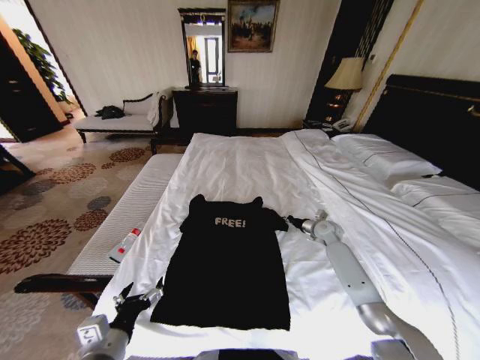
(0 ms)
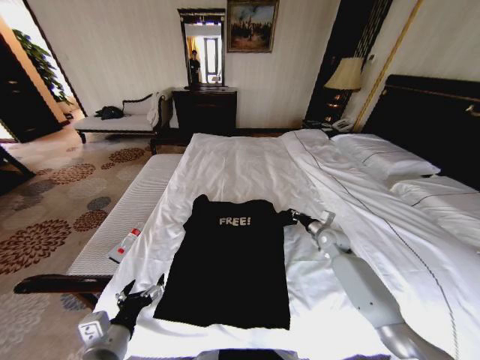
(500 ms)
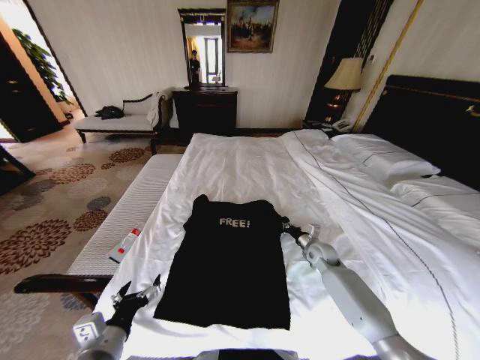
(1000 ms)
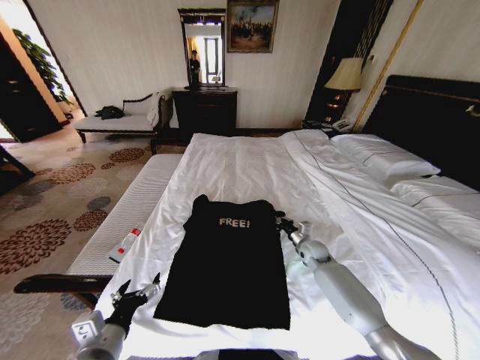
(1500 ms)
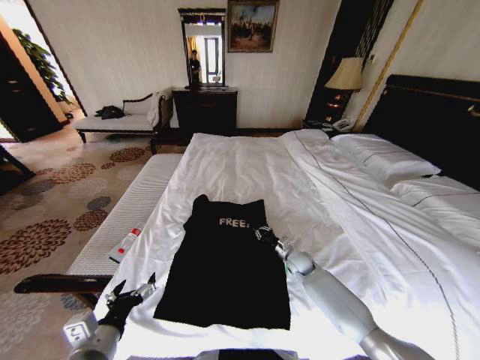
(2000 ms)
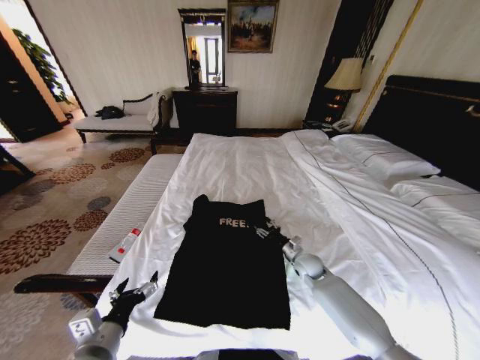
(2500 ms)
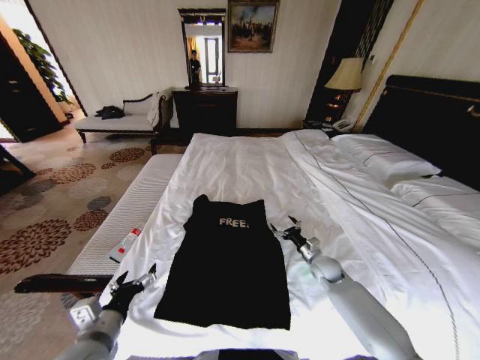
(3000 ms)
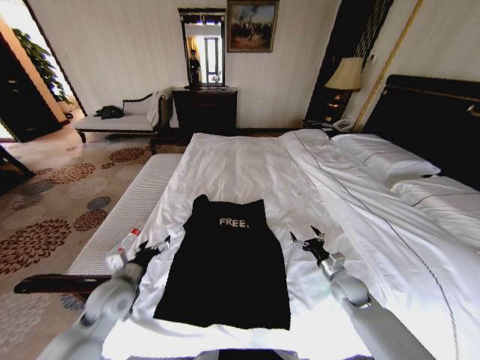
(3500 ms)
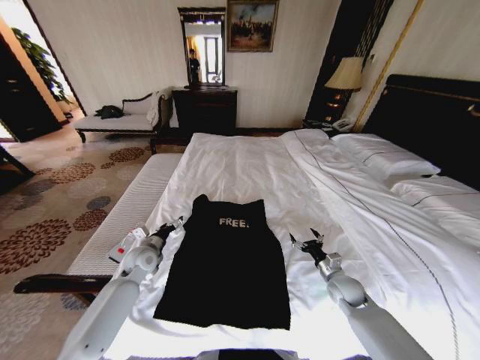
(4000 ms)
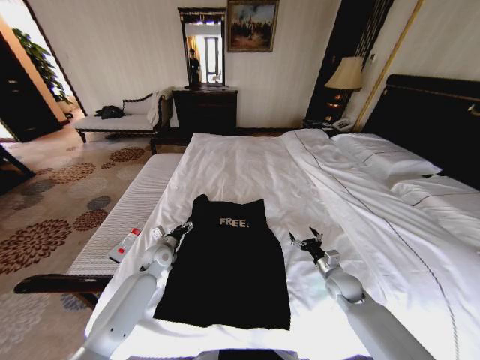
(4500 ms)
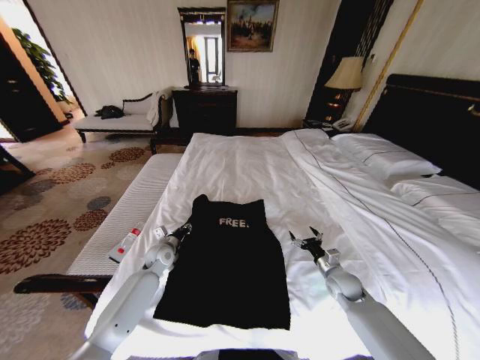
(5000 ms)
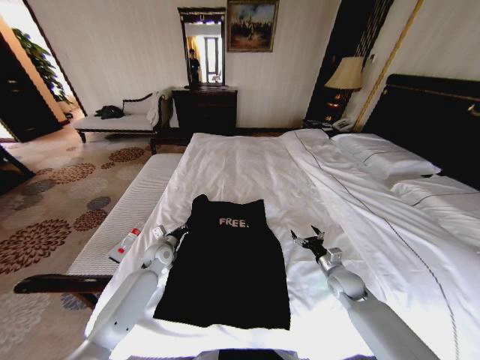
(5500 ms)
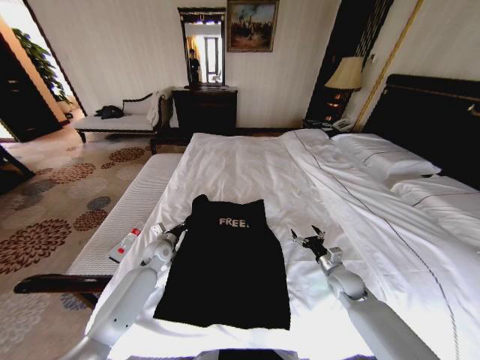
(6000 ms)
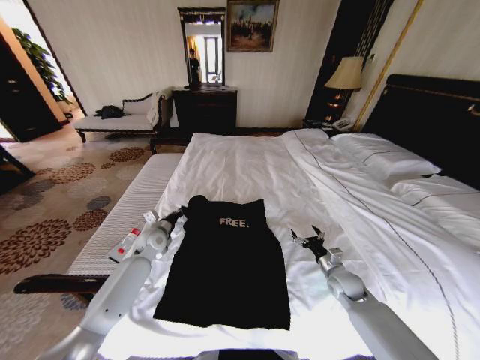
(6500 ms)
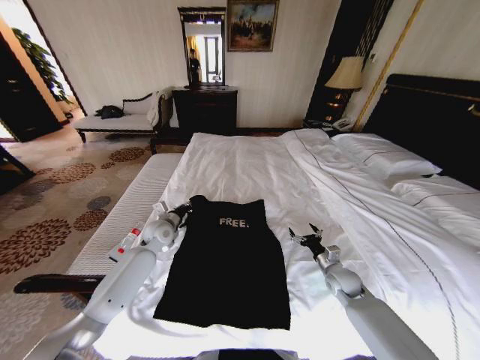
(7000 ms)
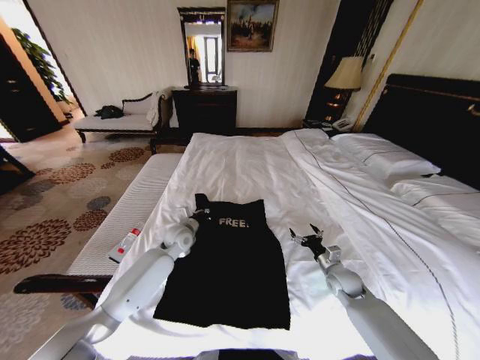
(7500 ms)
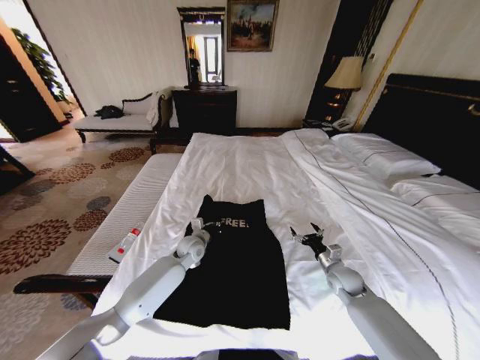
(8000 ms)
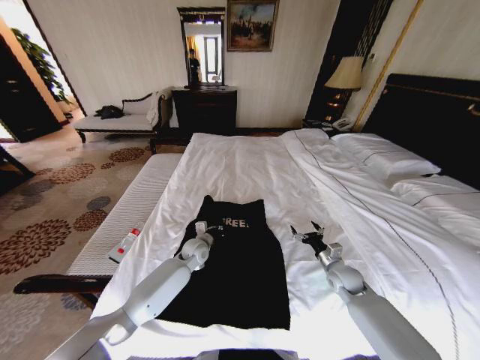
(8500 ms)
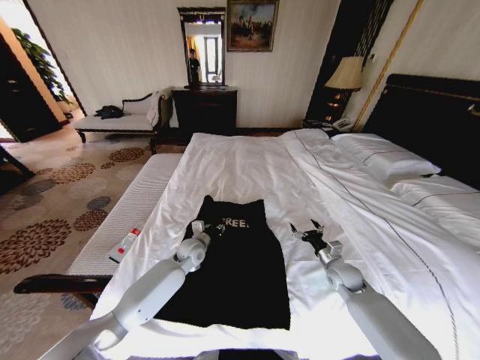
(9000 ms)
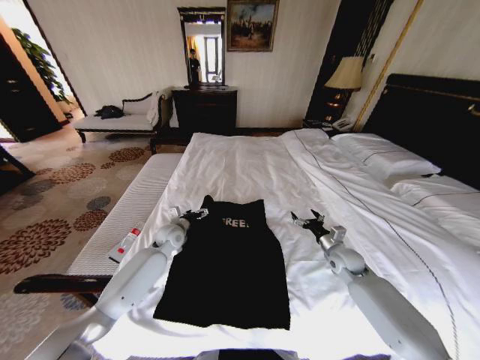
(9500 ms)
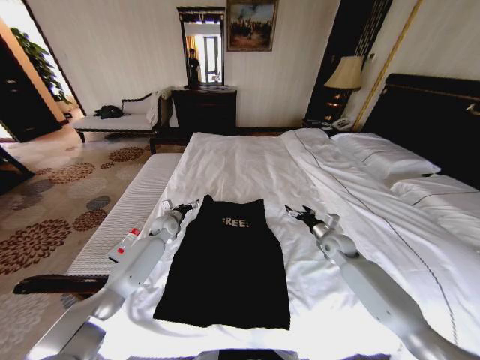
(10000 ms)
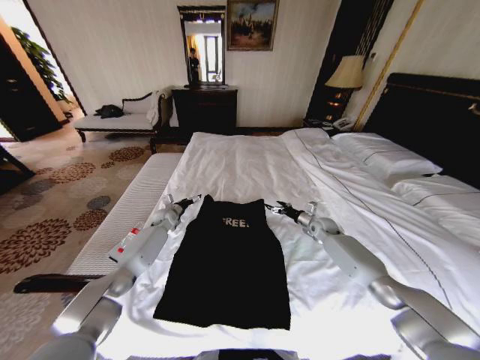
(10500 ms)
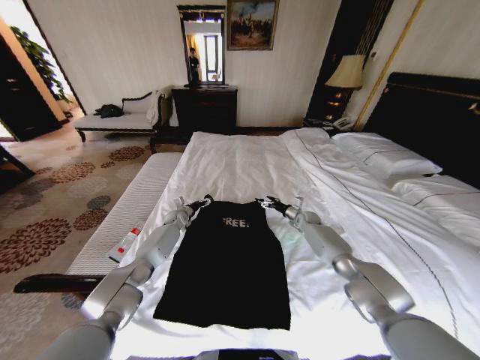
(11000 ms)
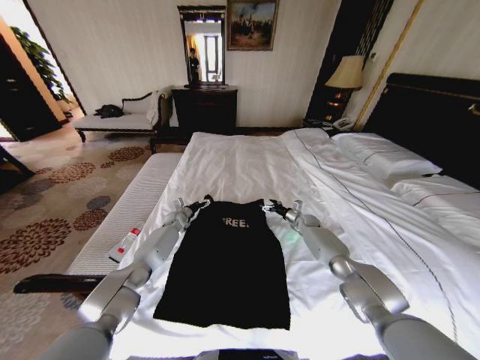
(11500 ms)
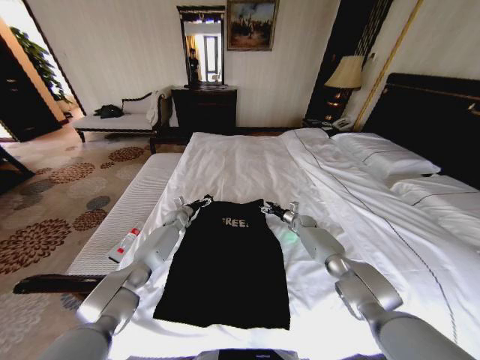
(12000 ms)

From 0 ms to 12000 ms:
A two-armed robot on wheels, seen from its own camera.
Task of the whole recording: Fold the clothes on the bed.
From 0 ms to 2000 ms: The right gripper goes about 15 cm to the left, downward and backward.
From 2000 ms to 4000 ms: The right gripper goes roughly 15 cm to the right and backward, and opens. The left gripper travels forward by approximately 30 cm.
From 4000 ms to 6000 ms: The left gripper ends up roughly 5 cm from where it was, and closes.
From 6000 ms to 8000 ms: The left gripper moves to the right, roughly 10 cm.
From 8000 ms to 10000 ms: The right gripper shifts approximately 10 cm forward and upward, while the left gripper goes approximately 15 cm to the left and forward, and opens its fingers.
From 10000 ms to 12000 ms: The left gripper shifts about 5 cm forward, while the right gripper heads forward and downward, covering approximately 20 cm.

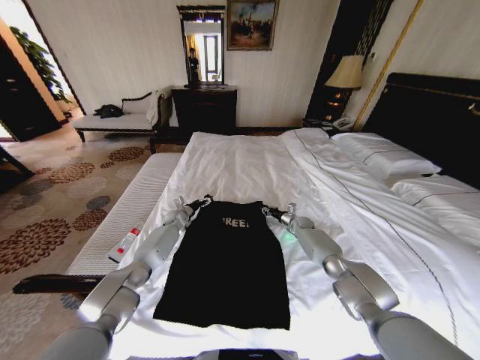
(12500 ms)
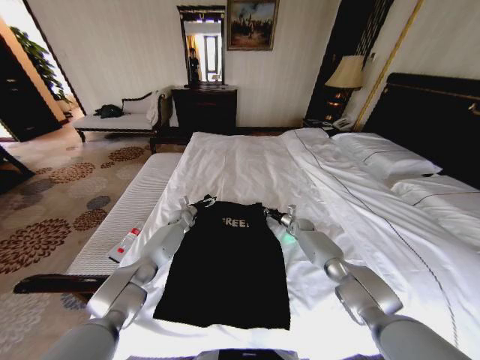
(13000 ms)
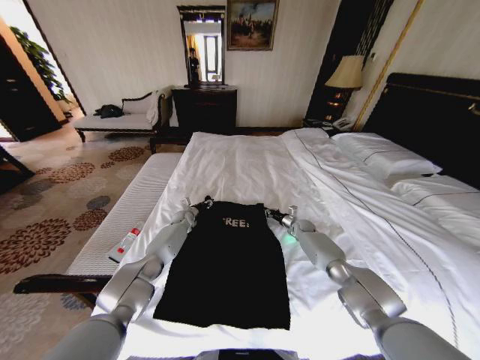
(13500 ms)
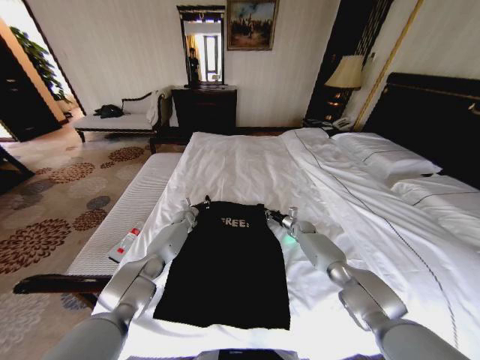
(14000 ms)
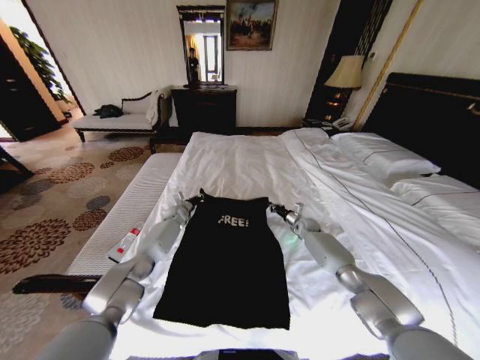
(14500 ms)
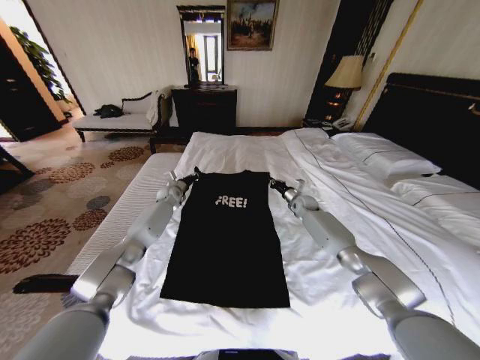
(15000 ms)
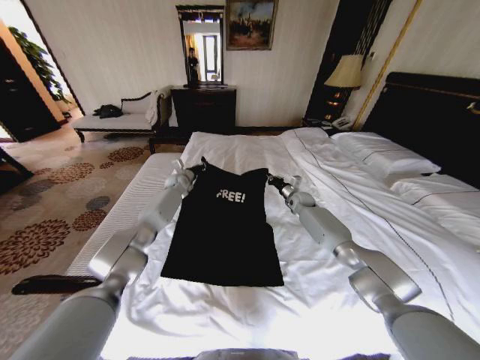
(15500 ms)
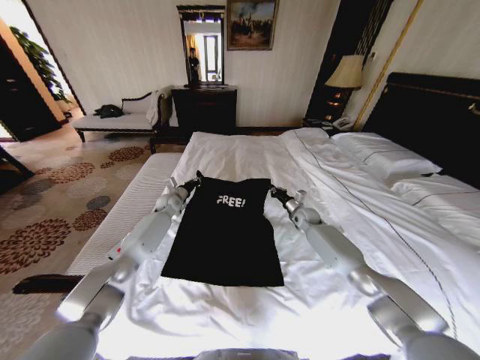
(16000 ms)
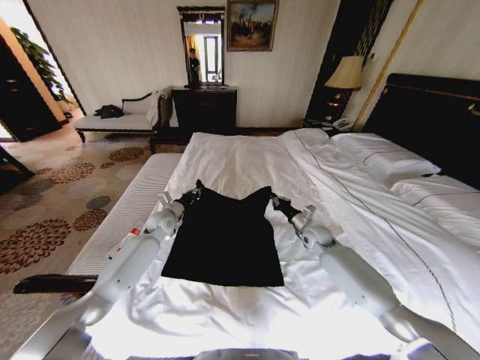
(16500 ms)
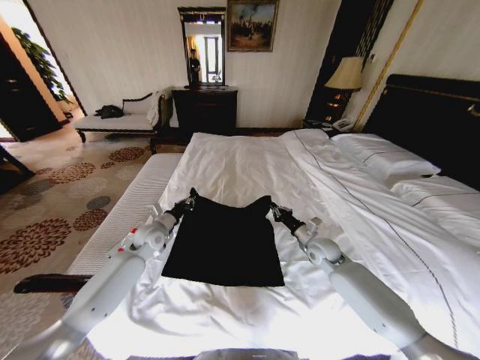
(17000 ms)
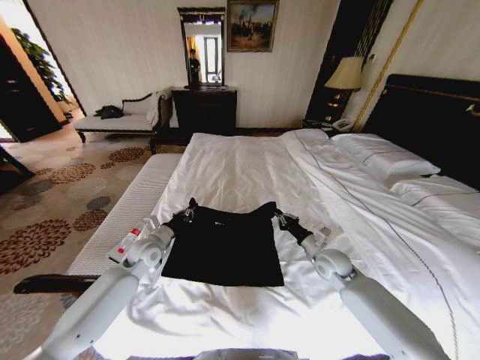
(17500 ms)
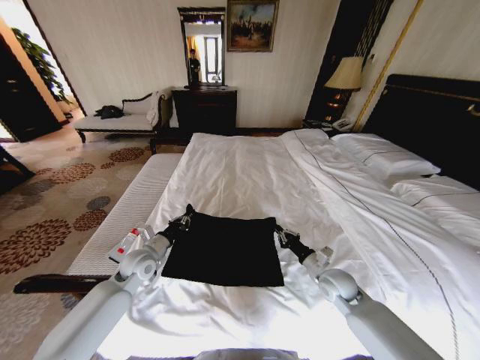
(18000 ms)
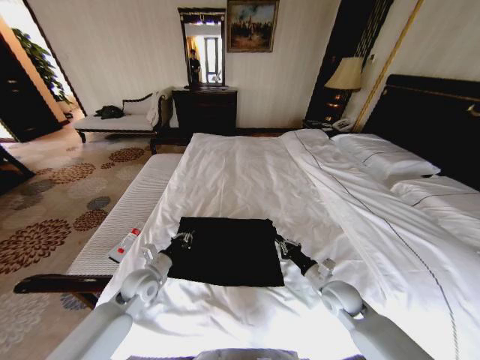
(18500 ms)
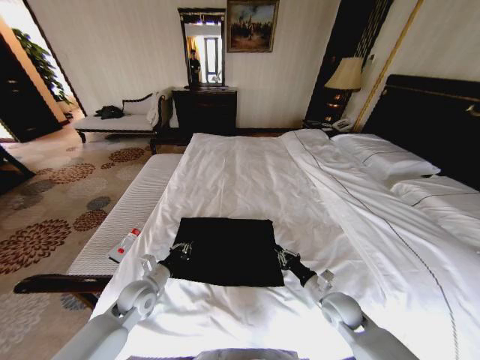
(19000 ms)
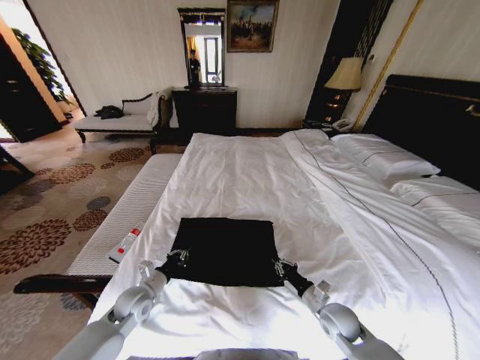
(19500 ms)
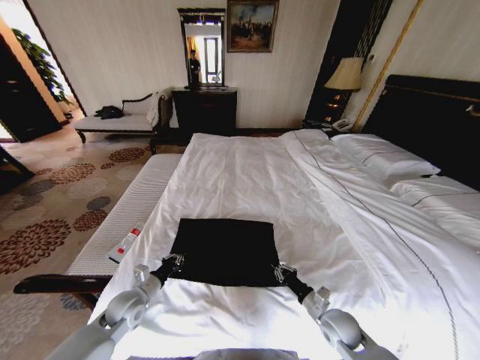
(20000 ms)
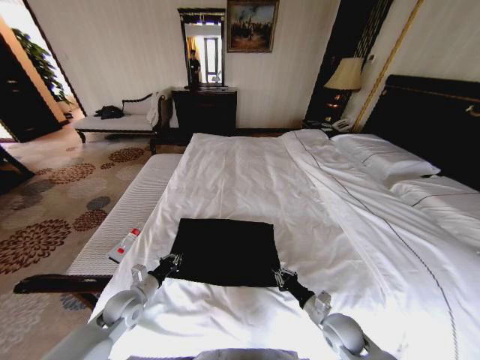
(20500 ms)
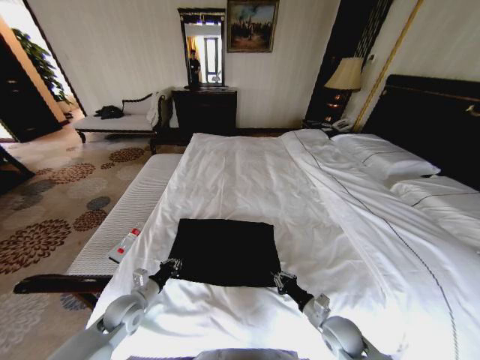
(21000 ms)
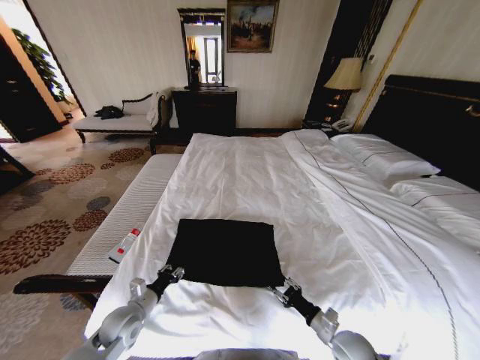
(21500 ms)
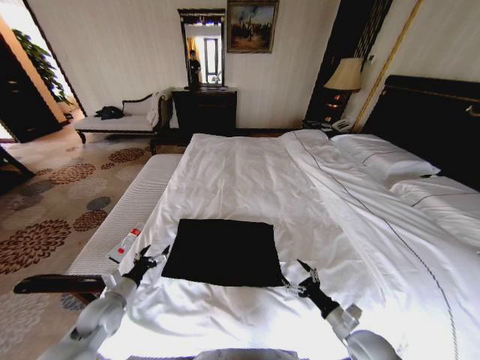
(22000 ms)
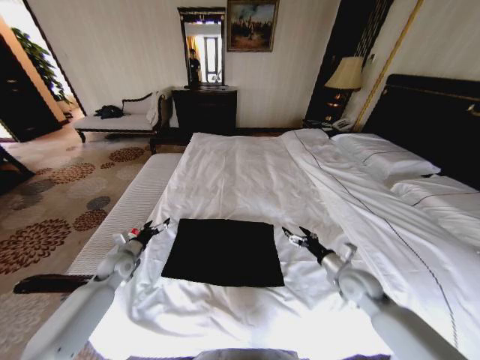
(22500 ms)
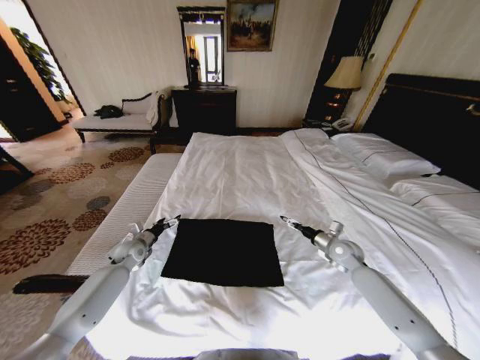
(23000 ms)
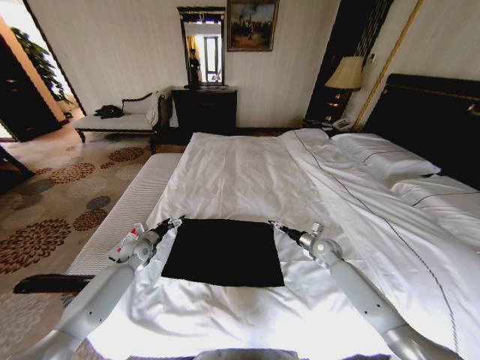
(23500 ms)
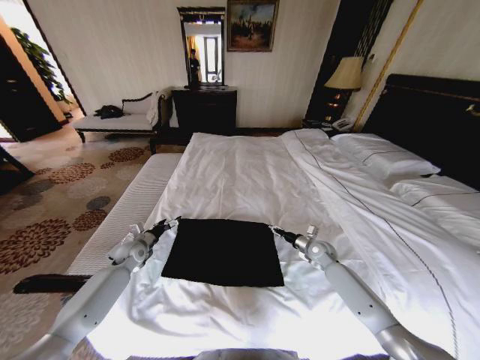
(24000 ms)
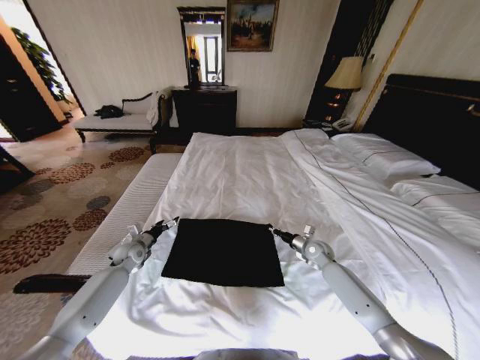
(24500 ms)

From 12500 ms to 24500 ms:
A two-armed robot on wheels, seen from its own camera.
Task of the whole recording: Fold the clothes on the bed.
From 12500 ms to 14500 ms: The left gripper closes.
From 14500 ms to 16500 ms: The two grippers go roughly 15 cm backward and upward.
From 16500 ms to 18500 ms: The grippers both shift backward by approximately 20 cm.
From 18500 ms to 20500 ms: The left gripper ends up about 5 cm from where it was, while the right gripper travels backward and downward by some 10 cm.
From 20500 ms to 22500 ms: The right gripper shifts roughly 15 cm upward and forward, and opens, while the left gripper moves forward and to the left, approximately 15 cm, and opens its fingers.
From 22500 ms to 24500 ms: The left gripper shifts about 5 cm forward. Meanwhile the right gripper shifts some 15 cm forward and downward, and closes.

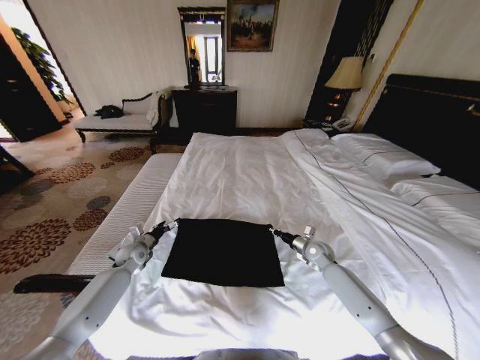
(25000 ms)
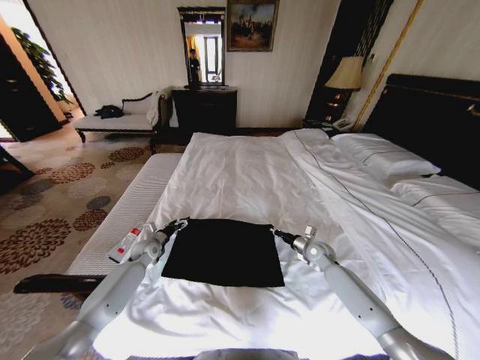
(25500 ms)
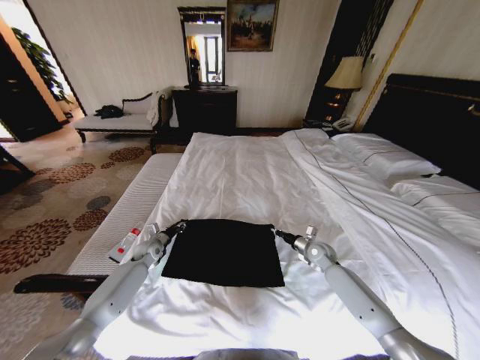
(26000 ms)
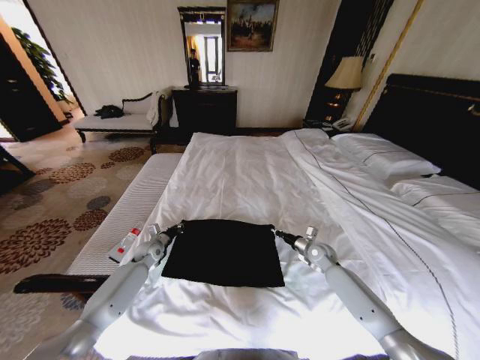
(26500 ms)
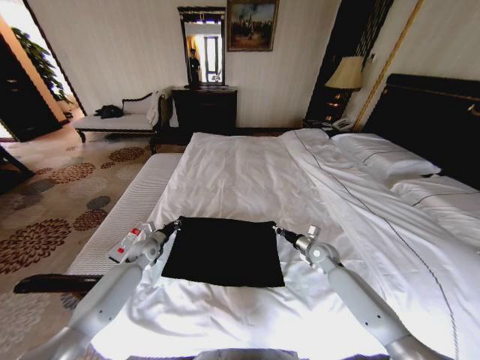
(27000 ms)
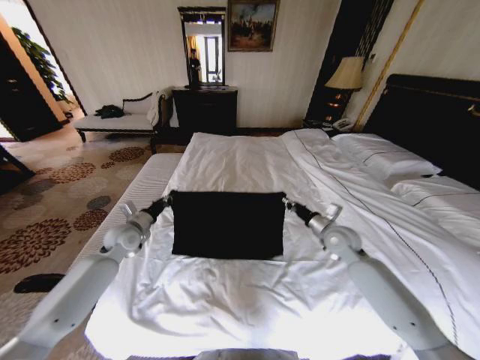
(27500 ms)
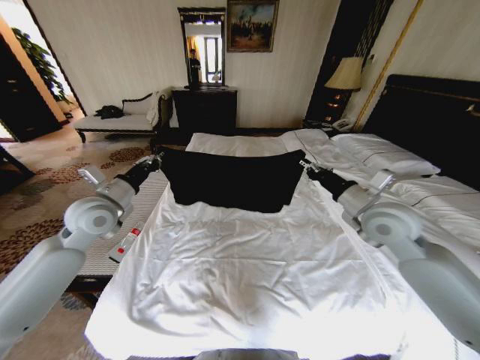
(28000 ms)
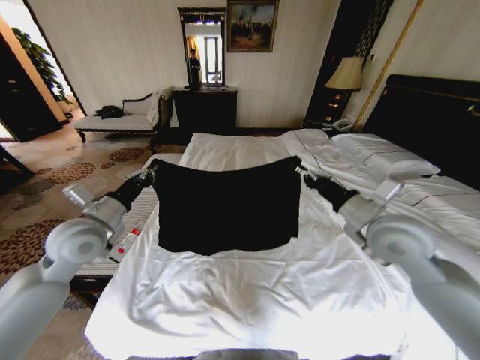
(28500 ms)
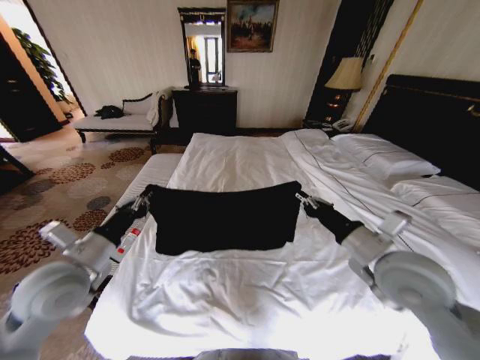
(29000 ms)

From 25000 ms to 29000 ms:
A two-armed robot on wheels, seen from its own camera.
Task of the whole recording: Fold the clothes on the bed.
From 25000 ms to 27000 ms: The left gripper closes up.
From 27000 ms to 29000 ms: The grippers both shift upward and backward by roughly 30 cm.
